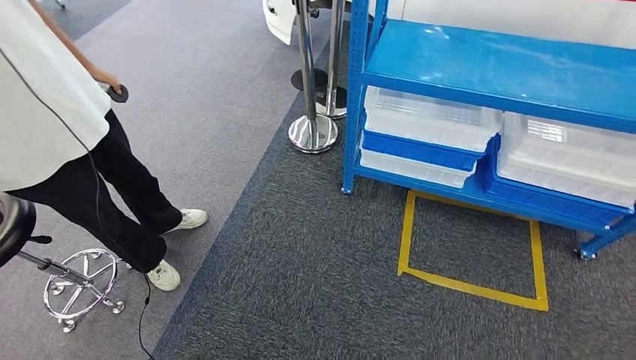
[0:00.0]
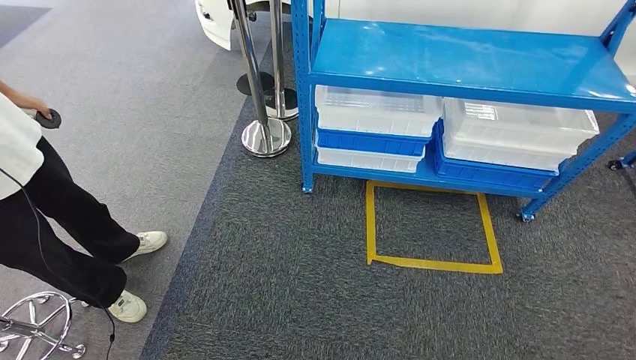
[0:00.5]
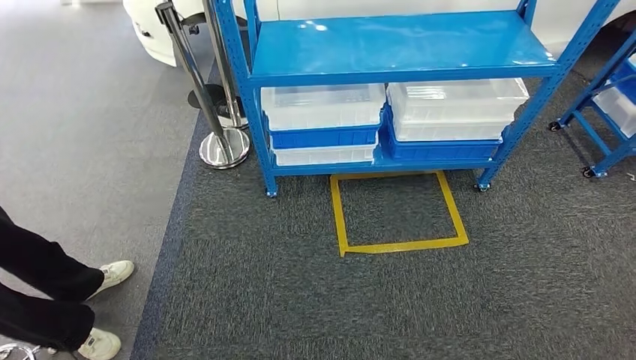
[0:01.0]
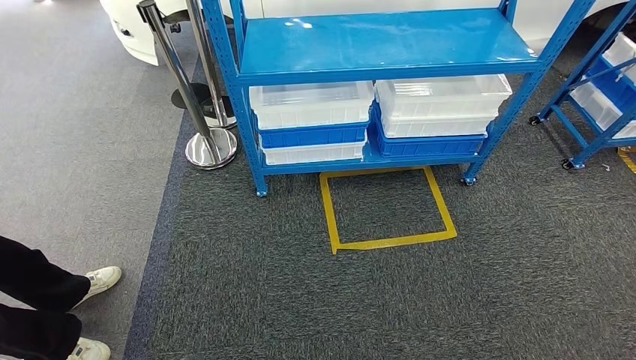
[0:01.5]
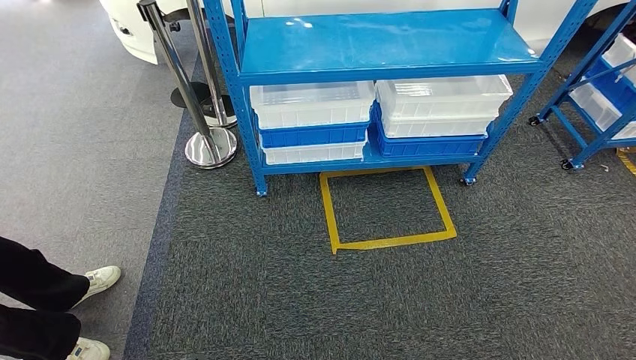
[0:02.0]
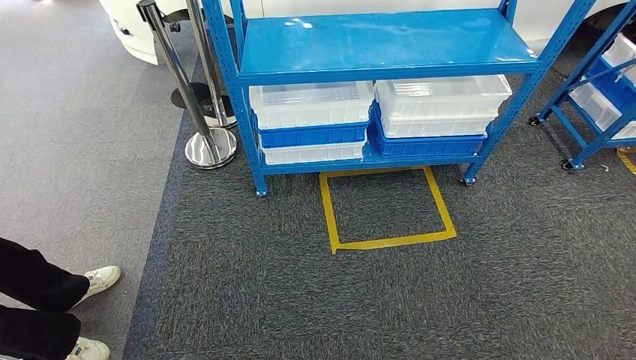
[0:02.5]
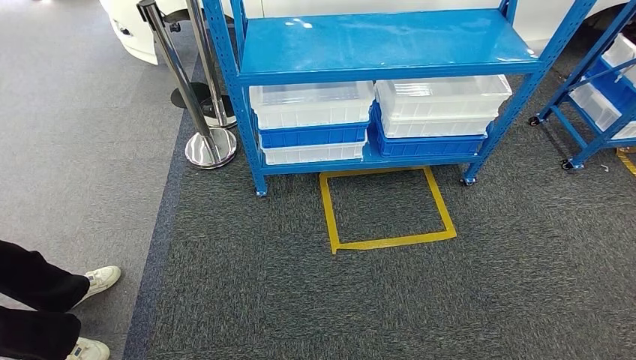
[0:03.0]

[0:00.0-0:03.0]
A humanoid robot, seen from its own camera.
Step, 0:00.0 to 0:02.0: Return to the initial position at the shelf.
0:01.5 to 0:03.0: The hands stay close to where they were, moving slightly.
